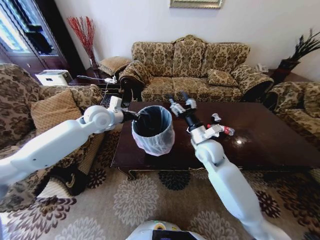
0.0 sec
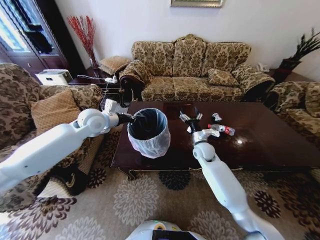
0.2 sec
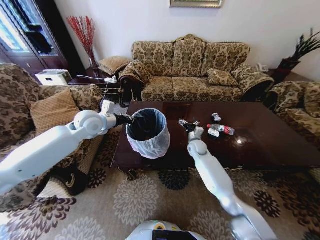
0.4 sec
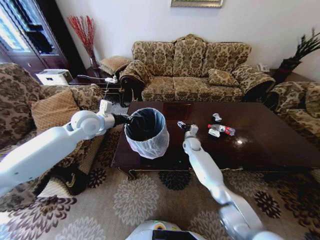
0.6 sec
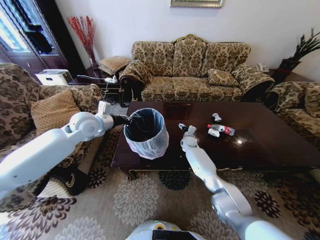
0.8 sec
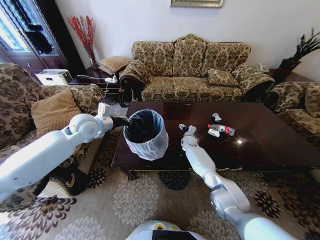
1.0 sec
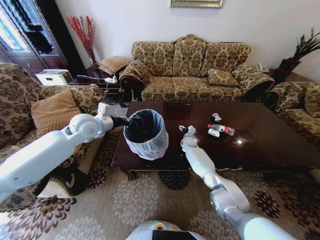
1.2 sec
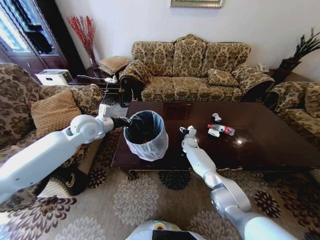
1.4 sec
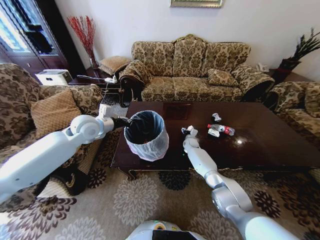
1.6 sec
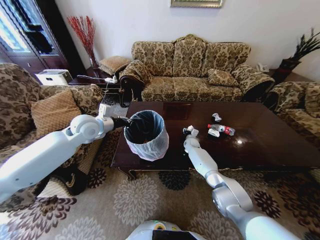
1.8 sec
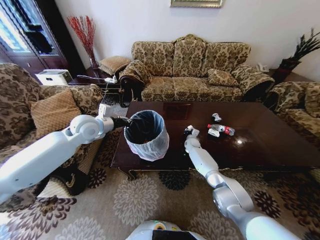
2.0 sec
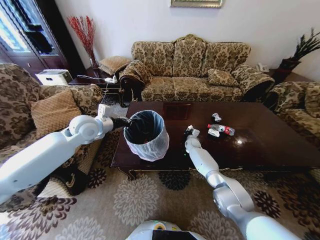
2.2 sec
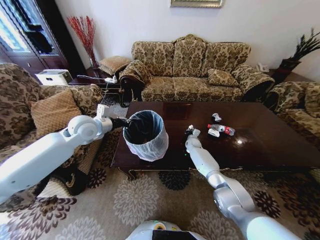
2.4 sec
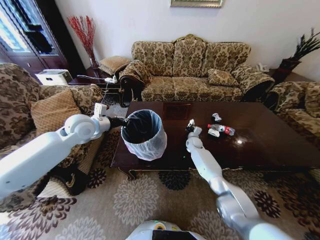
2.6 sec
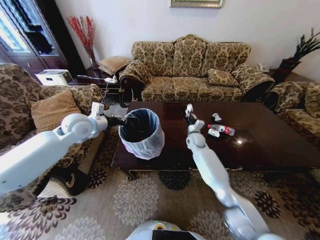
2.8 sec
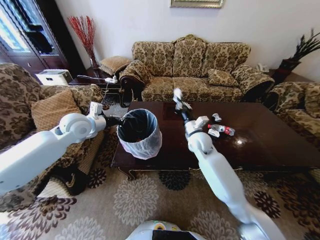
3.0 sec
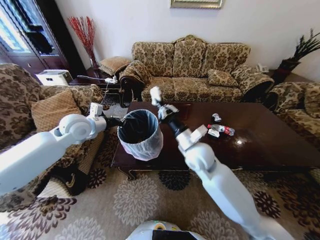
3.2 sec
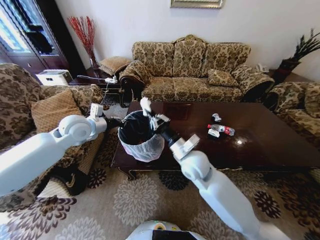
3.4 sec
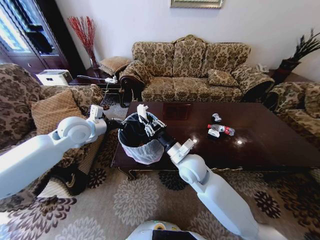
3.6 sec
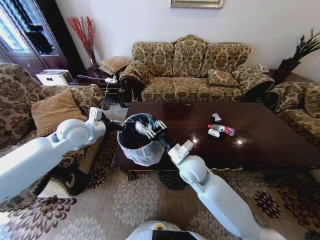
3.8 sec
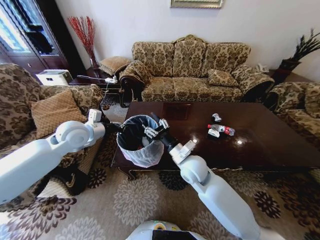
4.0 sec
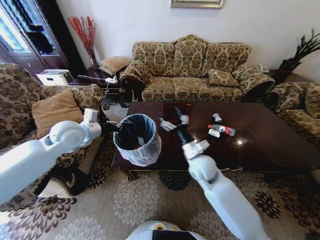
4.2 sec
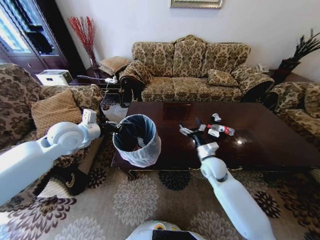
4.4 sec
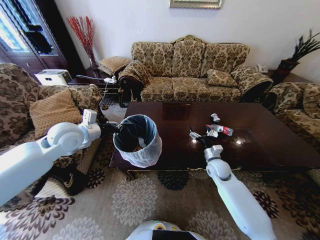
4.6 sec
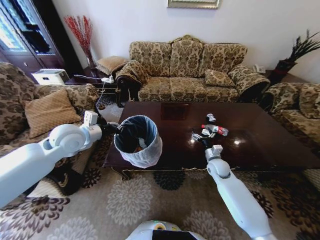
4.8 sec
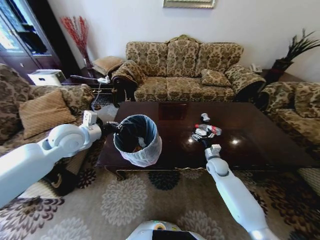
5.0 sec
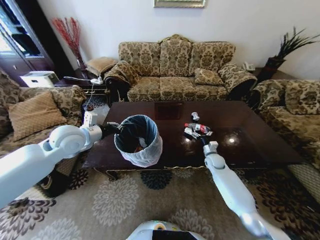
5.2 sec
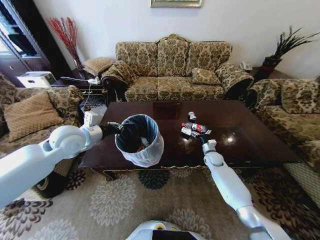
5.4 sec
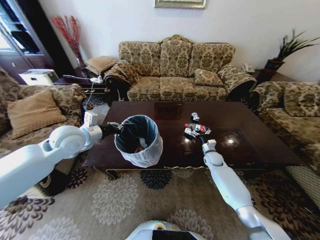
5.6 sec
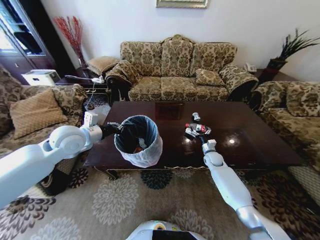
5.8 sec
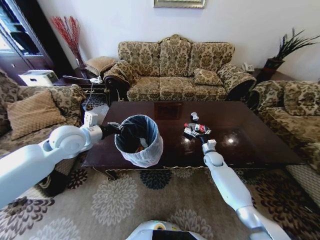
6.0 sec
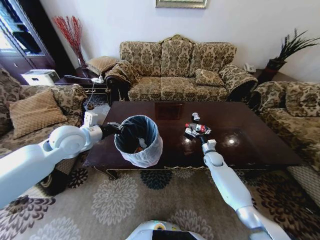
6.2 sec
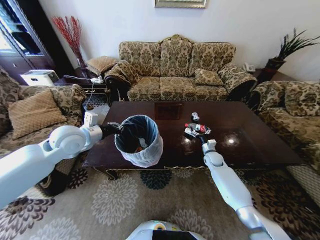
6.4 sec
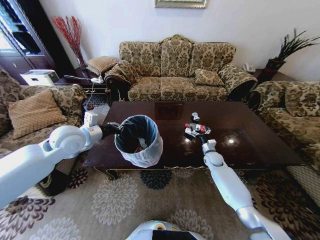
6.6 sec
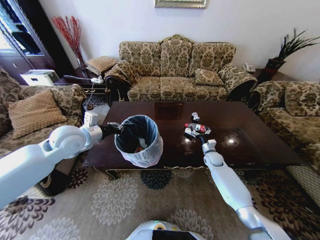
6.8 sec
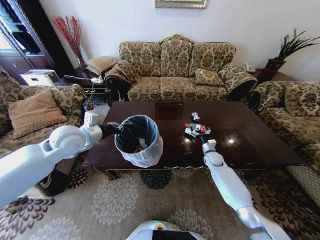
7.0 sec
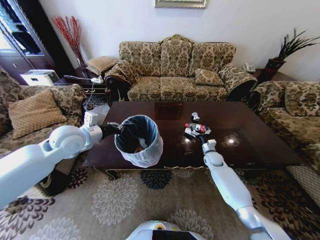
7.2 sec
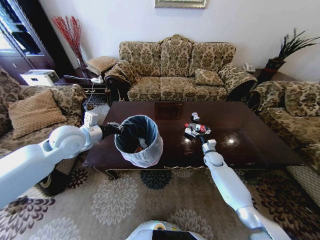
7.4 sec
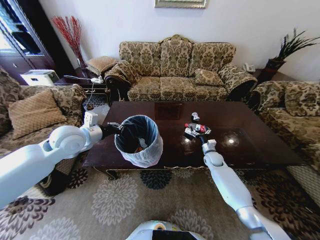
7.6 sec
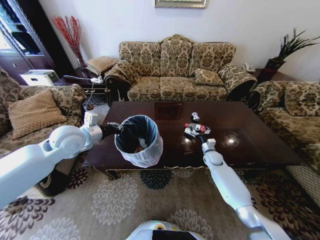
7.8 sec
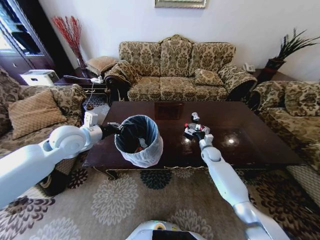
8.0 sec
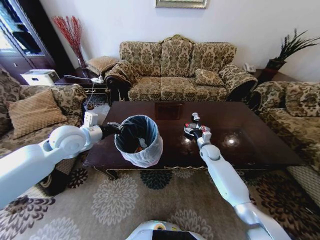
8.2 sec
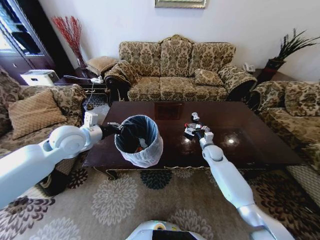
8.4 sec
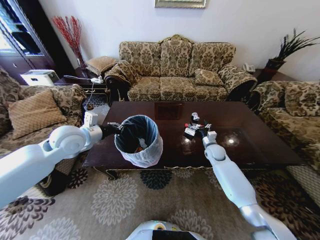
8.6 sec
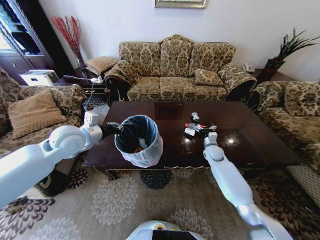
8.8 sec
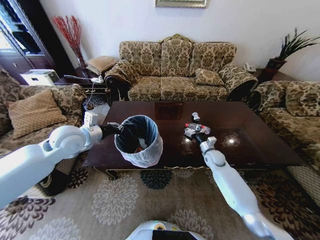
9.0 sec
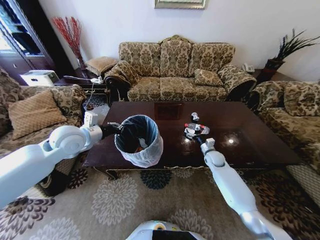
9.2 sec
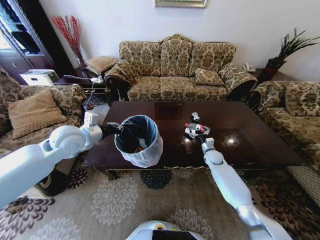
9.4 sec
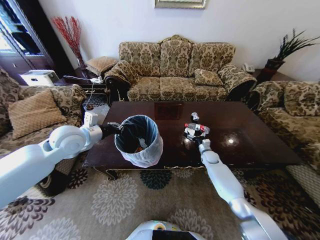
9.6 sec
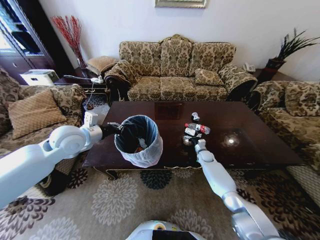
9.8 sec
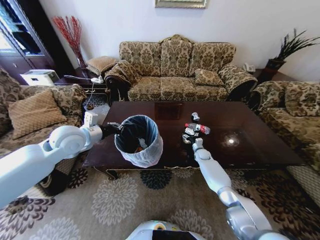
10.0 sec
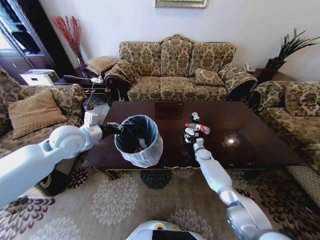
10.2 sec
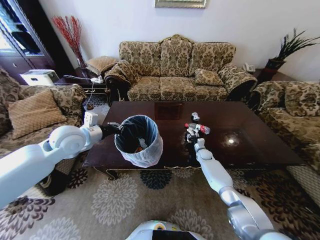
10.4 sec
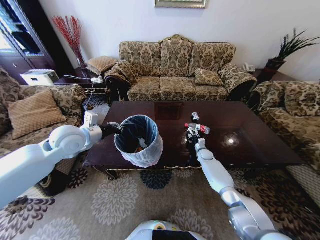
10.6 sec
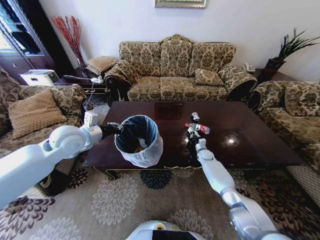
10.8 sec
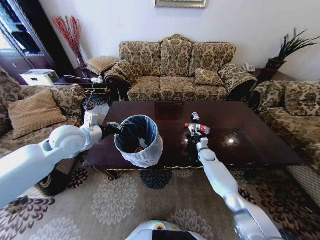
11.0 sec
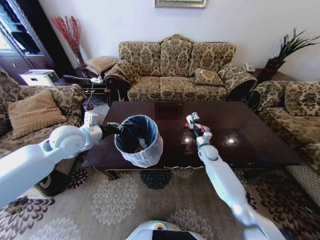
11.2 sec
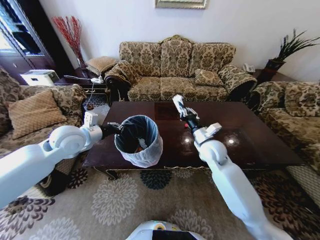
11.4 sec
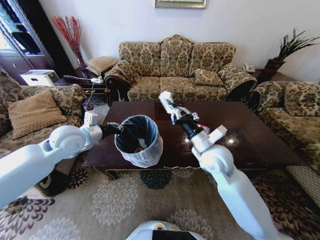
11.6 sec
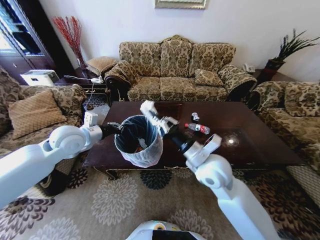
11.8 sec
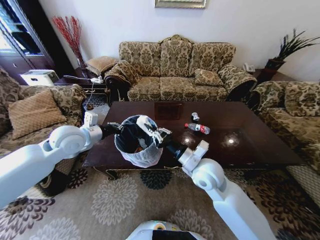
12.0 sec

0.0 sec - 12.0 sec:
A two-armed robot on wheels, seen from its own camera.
Task of the whole recording: Move to the front of the table and place the trash on the table into the trash bin.
0.0 sec - 1.6 sec: The left gripper ends up about 5 cm from where it was, while the right gripper is displaced downward and forward by about 30 cm.
1.6 sec - 3.0 sec: The right gripper heads upward and backward, covering about 30 cm, and closes its fingers.
3.0 sec - 4.4 sec: The right gripper is displaced downward and to the right by some 10 cm, and opens up.
4.4 sec - 6.0 sec: The right gripper heads downward, forward and to the right, covering some 20 cm.
6.0 sec - 7.6 sec: Both grippers stay about where they are.
9.0 sec - 10.4 sec: The right gripper goes some 10 cm downward and forward, and closes.
10.4 sec - 12.0 sec: The right gripper heads upward, backward and to the left, covering some 40 cm, and closes up.

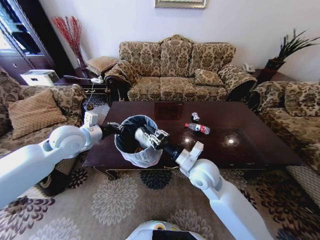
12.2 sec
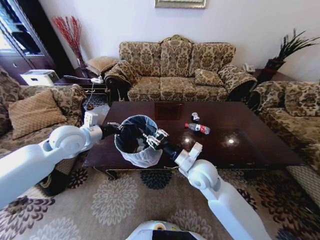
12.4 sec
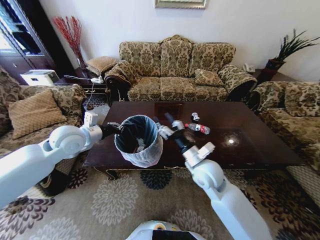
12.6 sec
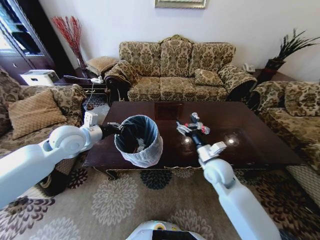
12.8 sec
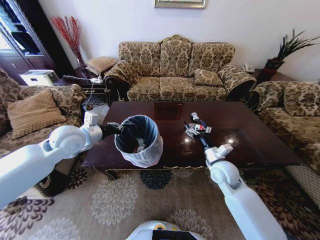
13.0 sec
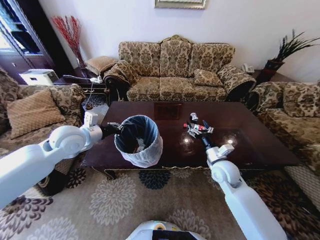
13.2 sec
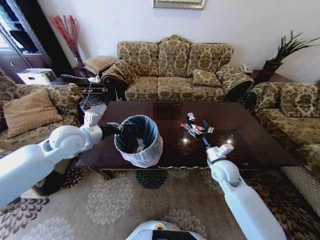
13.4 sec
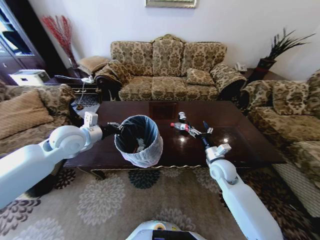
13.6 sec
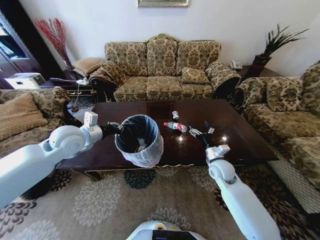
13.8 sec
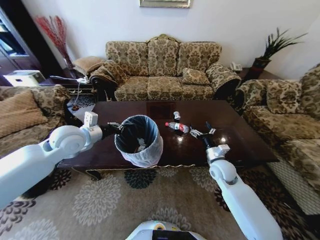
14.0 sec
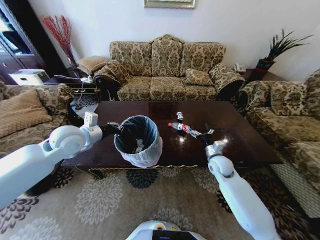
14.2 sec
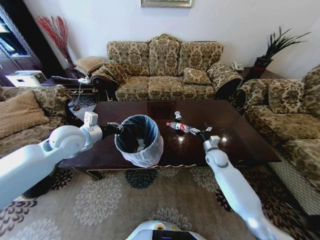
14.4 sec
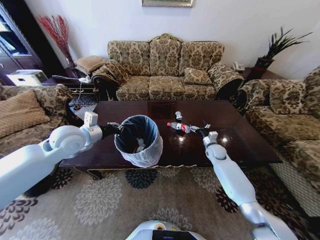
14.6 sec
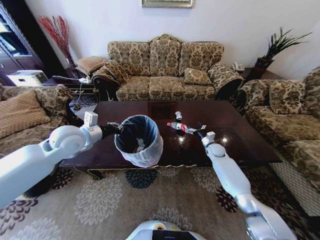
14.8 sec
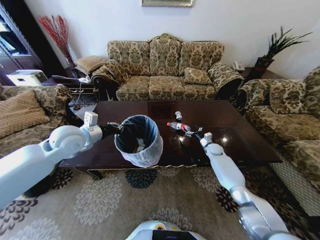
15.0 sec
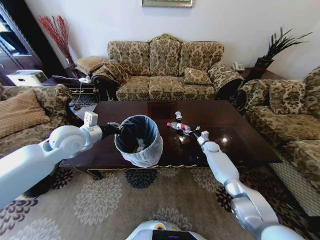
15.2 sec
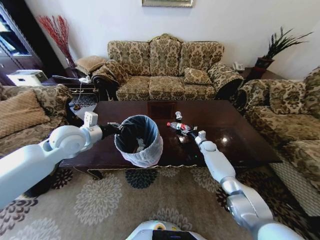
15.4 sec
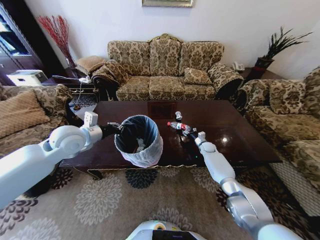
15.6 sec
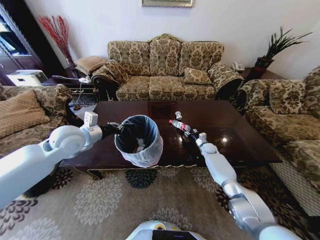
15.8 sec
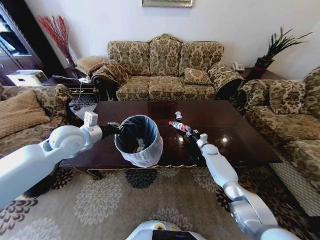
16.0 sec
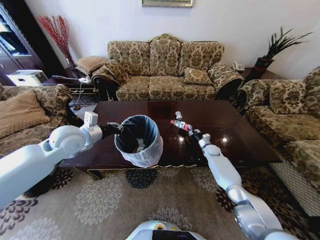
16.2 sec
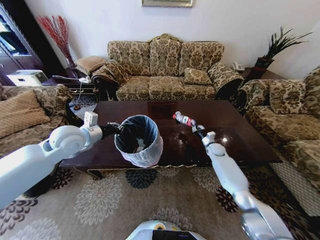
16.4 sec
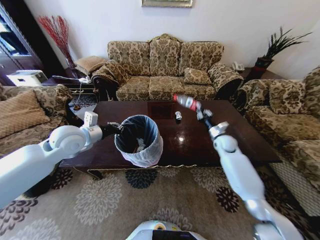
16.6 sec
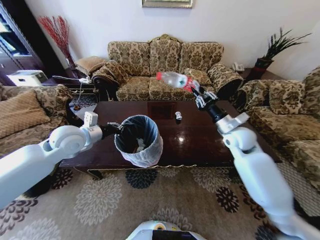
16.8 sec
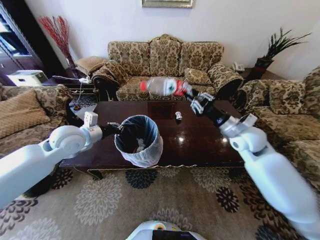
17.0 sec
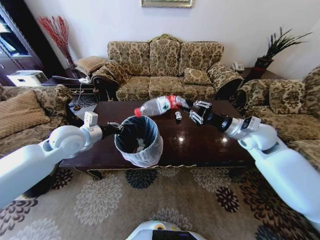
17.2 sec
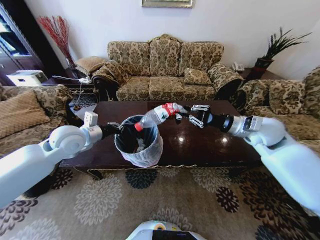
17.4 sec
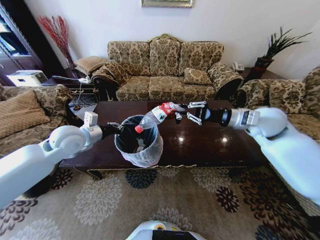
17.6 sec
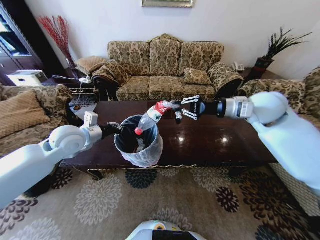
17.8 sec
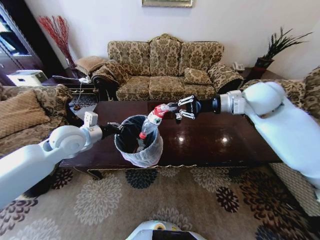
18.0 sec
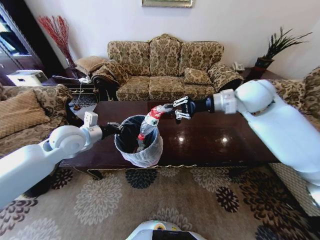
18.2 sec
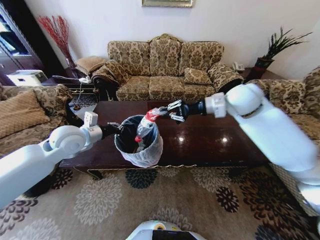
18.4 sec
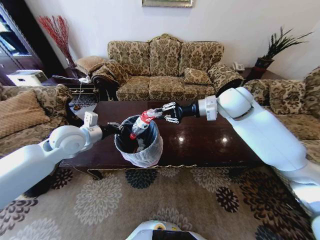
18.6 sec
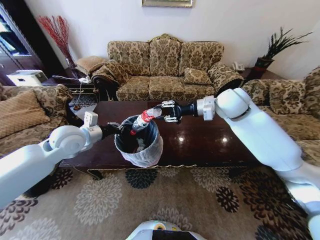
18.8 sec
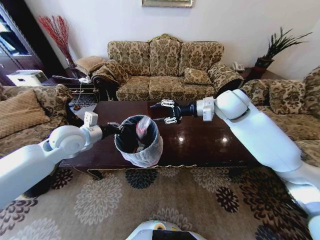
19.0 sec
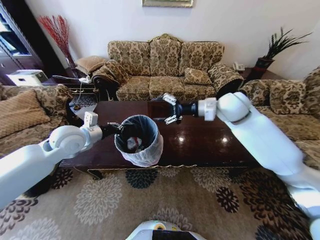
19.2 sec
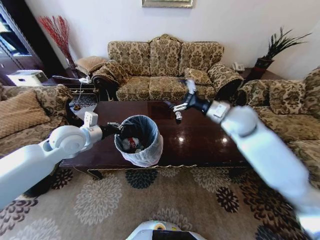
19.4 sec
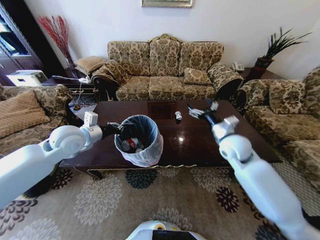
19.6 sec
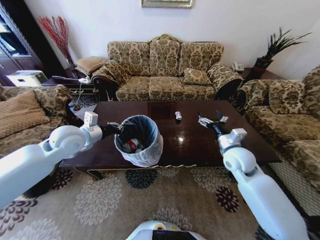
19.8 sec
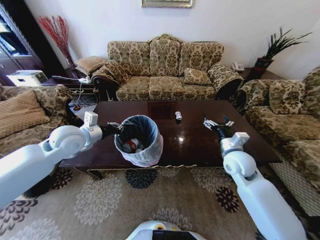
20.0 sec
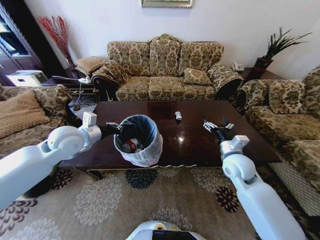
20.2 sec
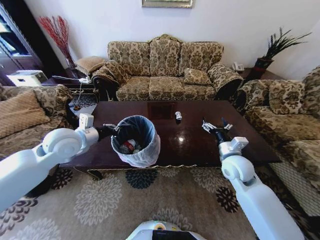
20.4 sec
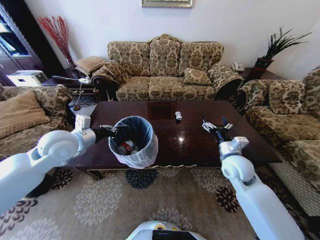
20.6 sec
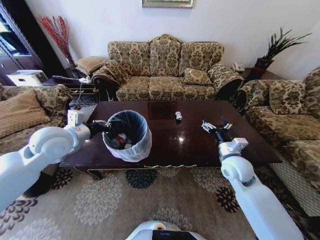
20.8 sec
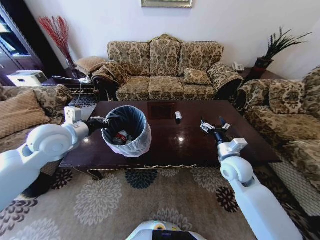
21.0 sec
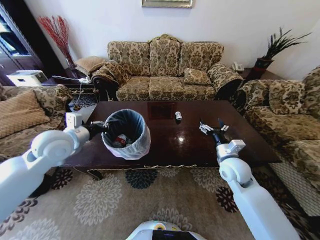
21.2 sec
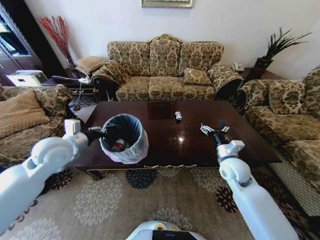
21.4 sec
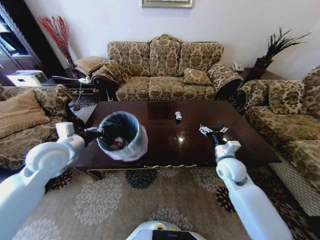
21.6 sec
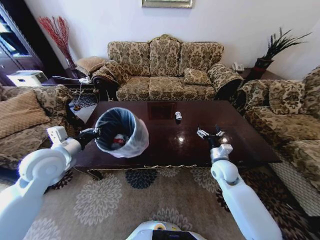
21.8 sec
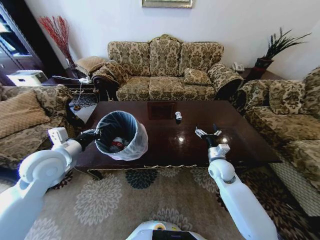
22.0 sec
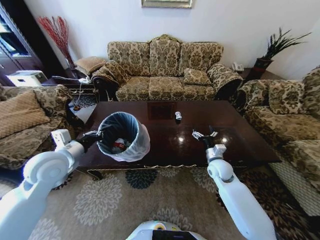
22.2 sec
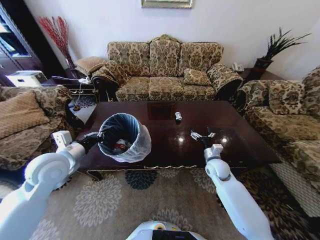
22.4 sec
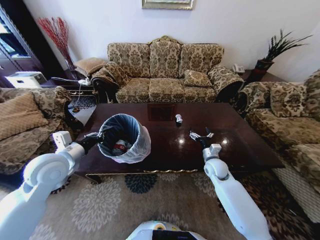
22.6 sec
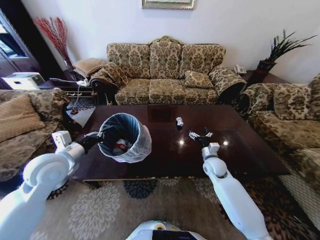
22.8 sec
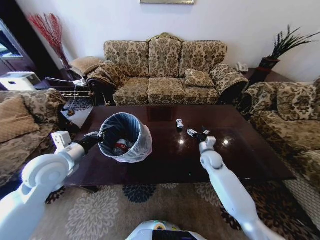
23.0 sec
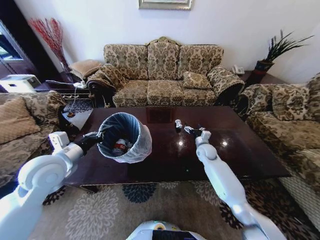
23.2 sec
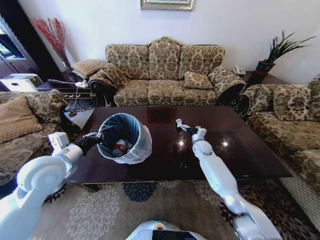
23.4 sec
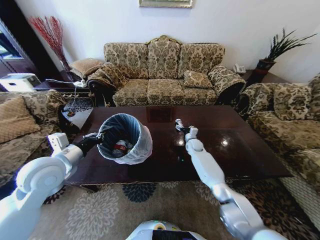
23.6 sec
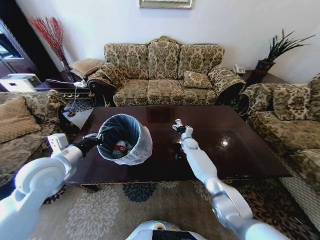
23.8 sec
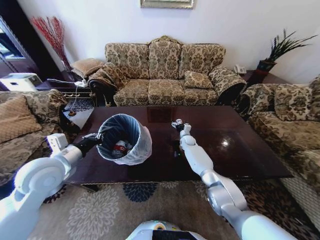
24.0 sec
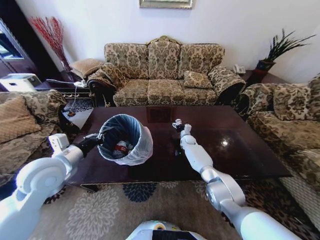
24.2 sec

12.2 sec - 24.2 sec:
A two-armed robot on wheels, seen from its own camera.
Task of the whole recording: Move to the front of the table and place the trash on the table into the trash bin.
12.2 sec - 13.8 sec: The right gripper is displaced to the right, downward and forward by some 15 cm, and opens its fingers.
13.8 sec - 15.2 sec: The right gripper heads forward and downward, covering about 25 cm.
15.2 sec - 16.6 sec: The right gripper heads upward and backward, covering approximately 15 cm, and closes its fingers.
16.6 sec - 18.2 sec: The right gripper moves upward, approximately 30 cm.
18.2 sec - 19.8 sec: The right gripper goes about 20 cm downward, and opens.
19.8 sec - 21.2 sec: The grippers stay close to where they were, moving slightly.
21.2 sec - 22.6 sec: The left gripper moves backward, about 5 cm, while the right gripper heads downward and forward, covering approximately 10 cm.
22.6 sec - 24.2 sec: The right gripper travels forward by some 25 cm.
